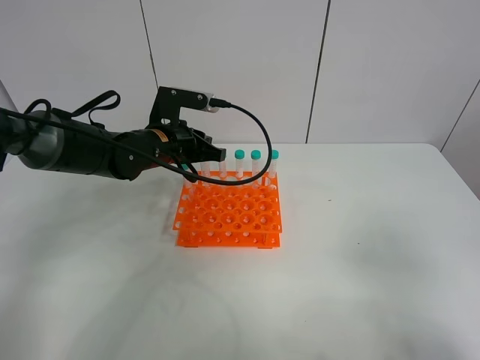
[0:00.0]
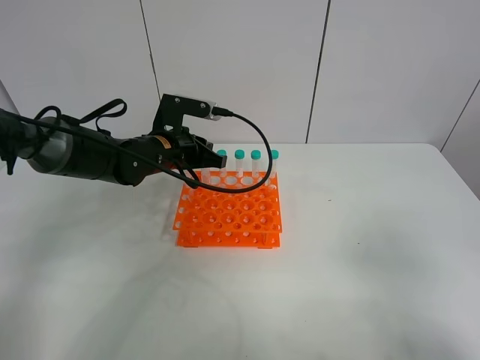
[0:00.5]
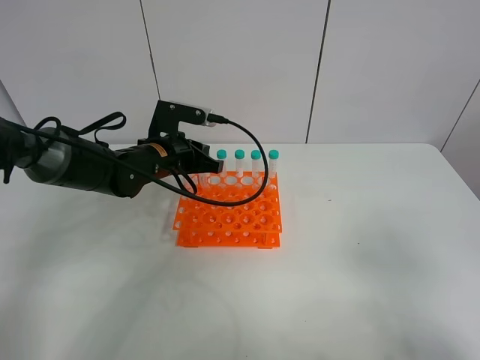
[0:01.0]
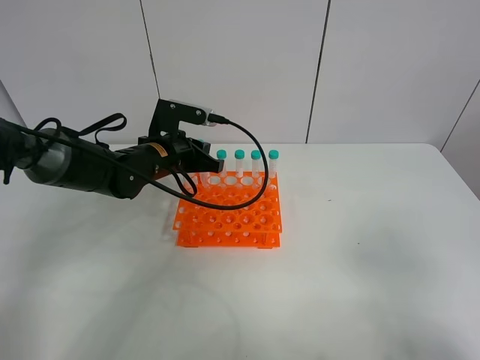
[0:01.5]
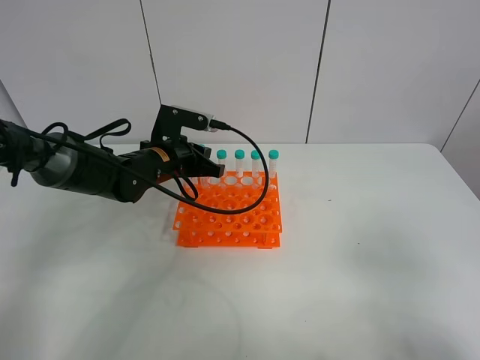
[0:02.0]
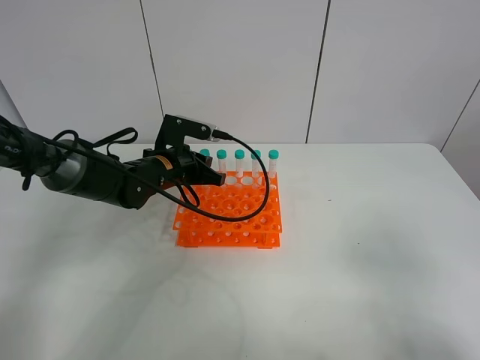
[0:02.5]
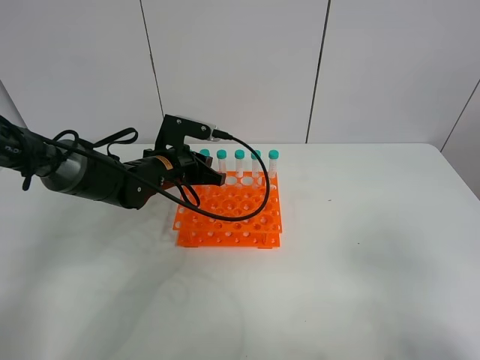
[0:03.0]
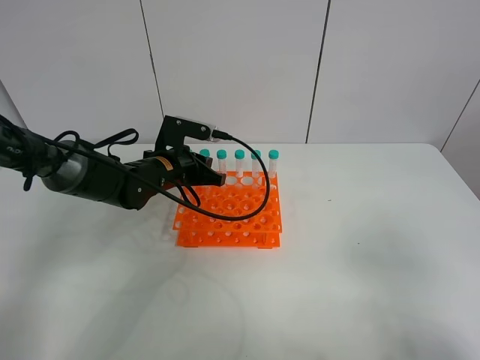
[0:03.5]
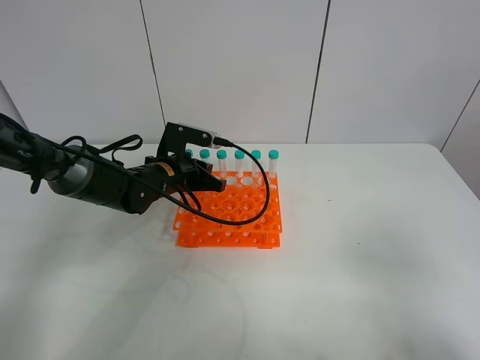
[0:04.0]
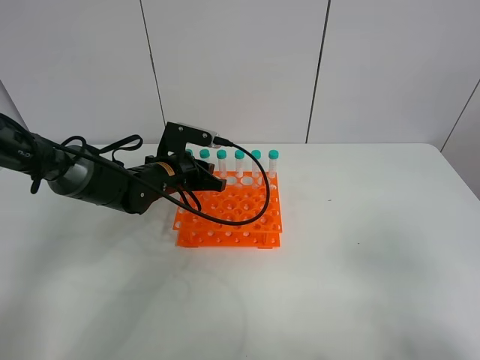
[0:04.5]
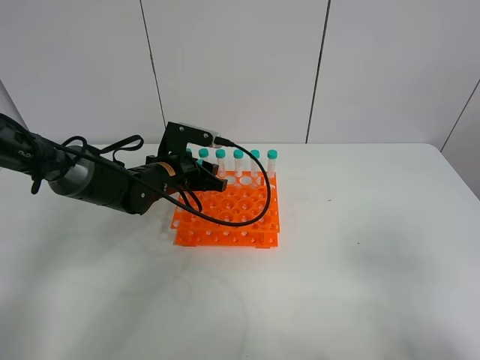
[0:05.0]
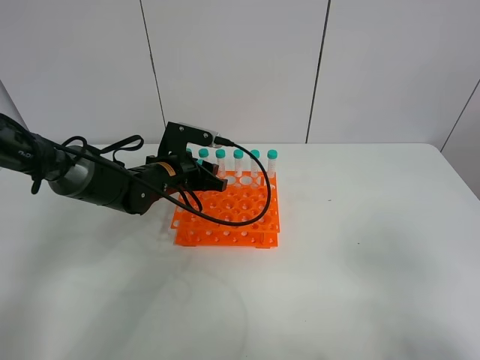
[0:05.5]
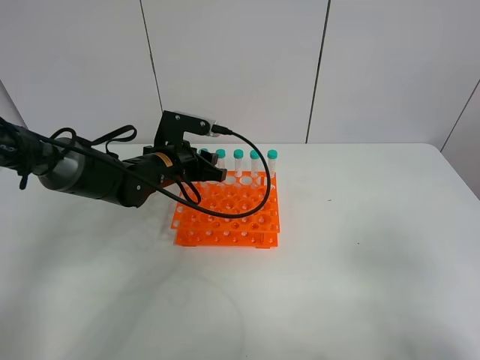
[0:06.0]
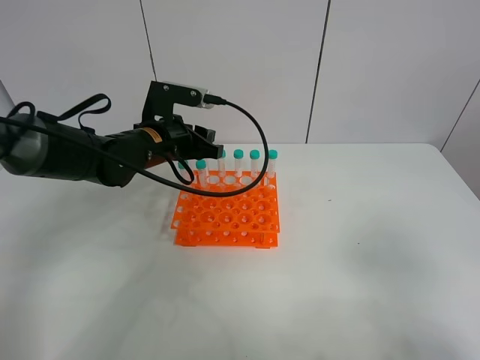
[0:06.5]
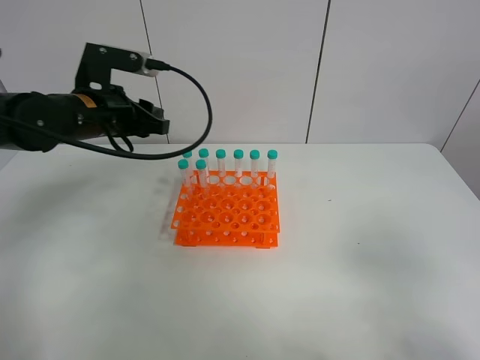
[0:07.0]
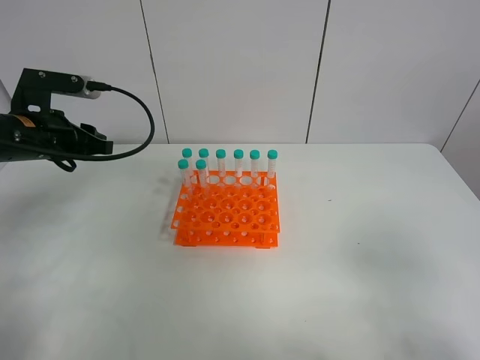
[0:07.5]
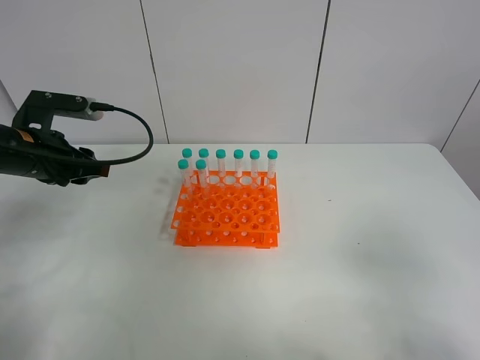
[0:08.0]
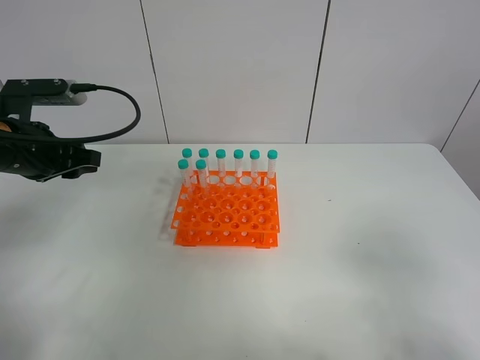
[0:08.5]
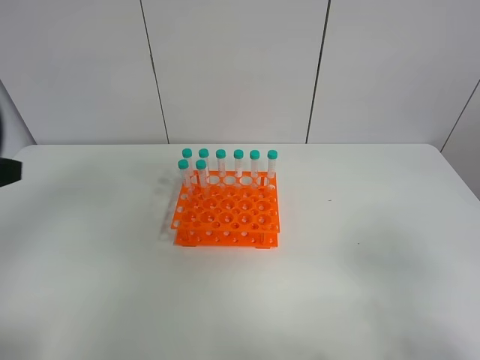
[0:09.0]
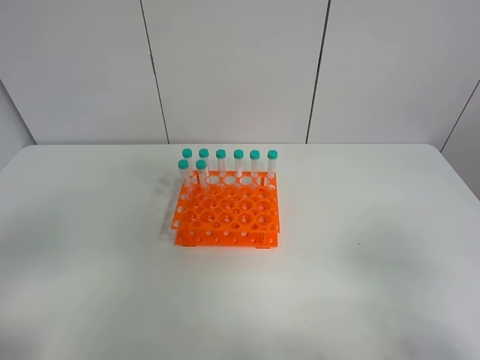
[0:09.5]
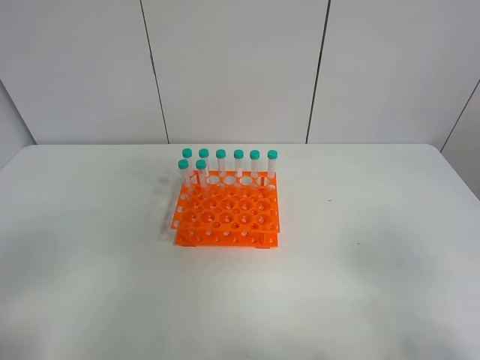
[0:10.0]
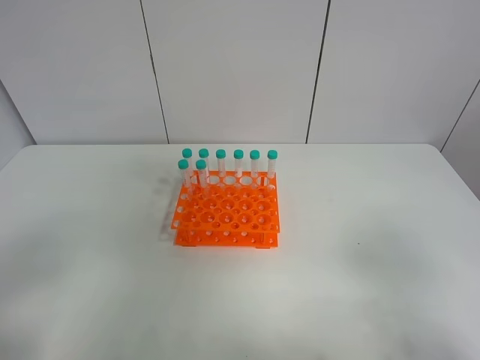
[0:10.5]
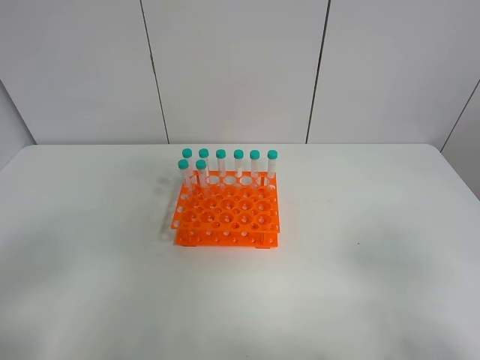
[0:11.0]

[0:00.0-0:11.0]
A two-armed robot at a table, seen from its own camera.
Task of the whole recording: Put the test tube on the table back onto the test tube rack.
Step, 0:00.0 to 0:05.5: Place the test tube on the test tube rack with the left gripper.
0:00.0 to 0:03.5: The grippers move only a little.
0:03.5 to 0:05.5: The left gripper opens its fingers.
0:05.5 to 0:07.5: The left gripper shifts some 20 cm to the left and upward.
0:07.5 to 0:09.0: The left gripper shifts approximately 20 cm backward and upward.
0:09.0 to 0:11.0: The left gripper heads backward and downward, covering approximately 15 cm.

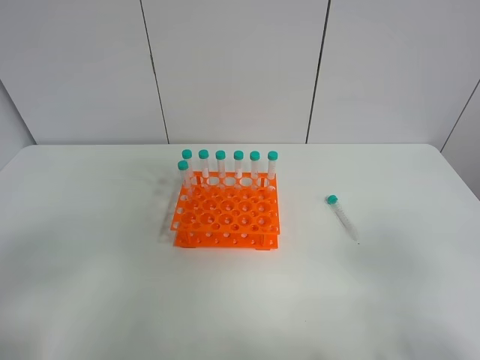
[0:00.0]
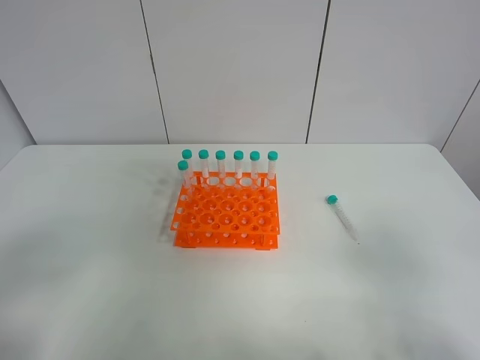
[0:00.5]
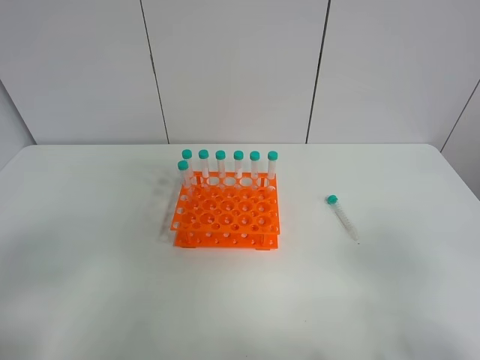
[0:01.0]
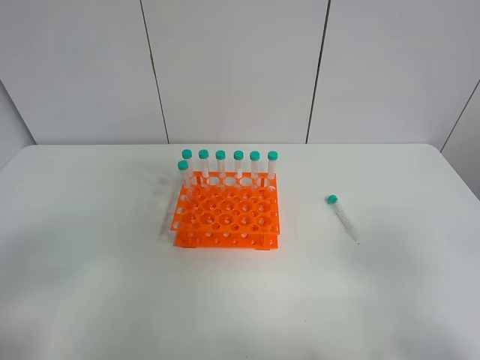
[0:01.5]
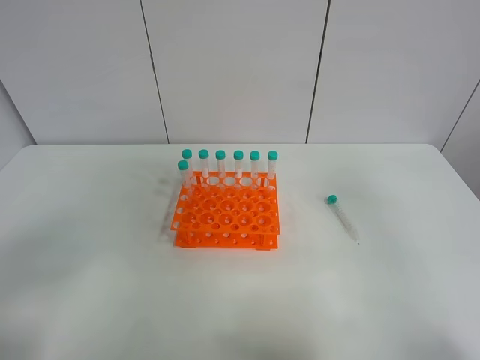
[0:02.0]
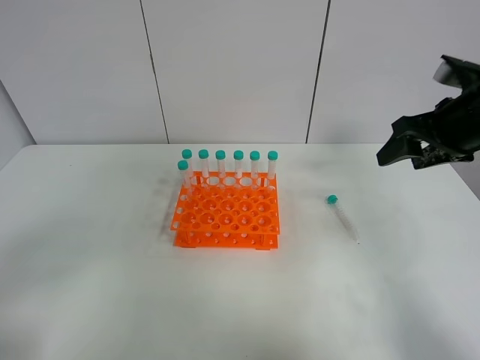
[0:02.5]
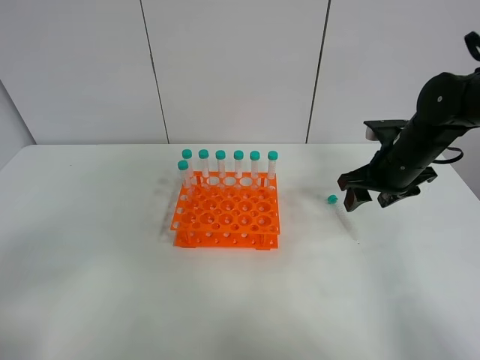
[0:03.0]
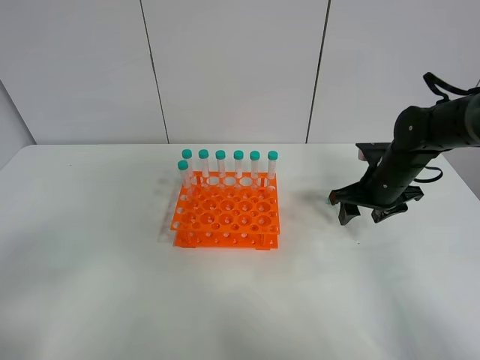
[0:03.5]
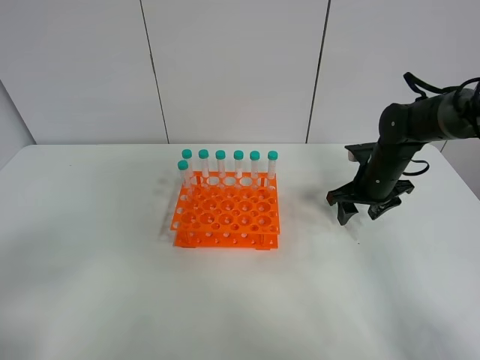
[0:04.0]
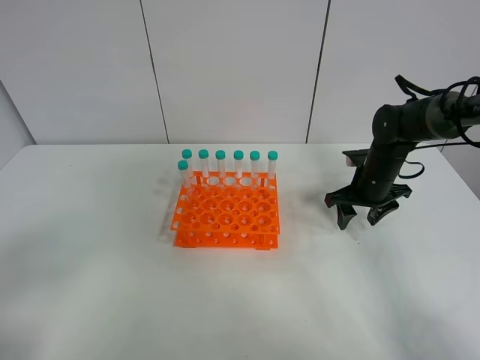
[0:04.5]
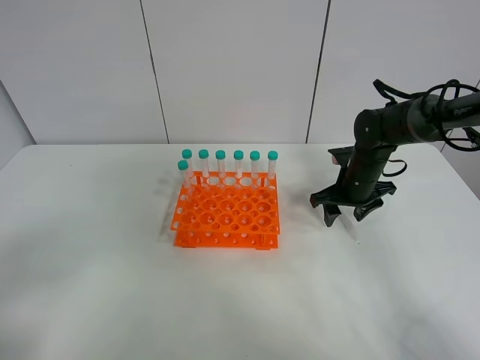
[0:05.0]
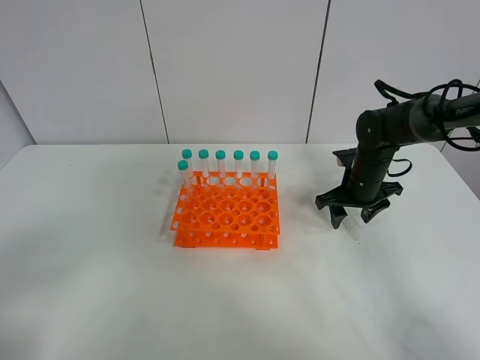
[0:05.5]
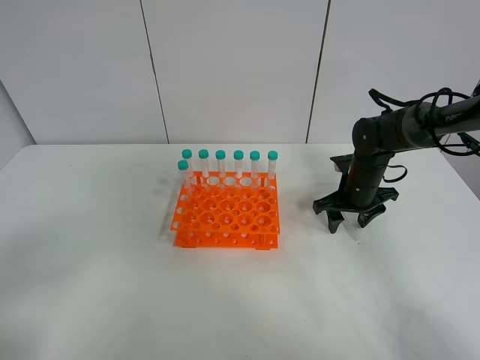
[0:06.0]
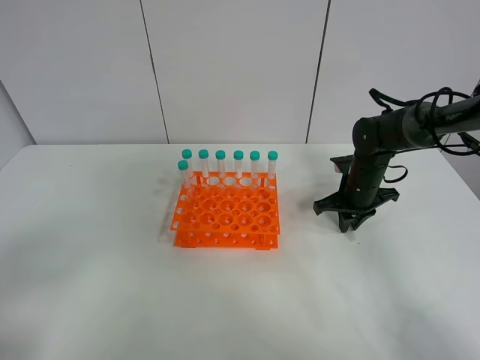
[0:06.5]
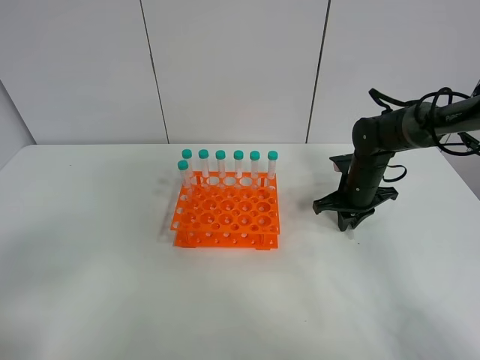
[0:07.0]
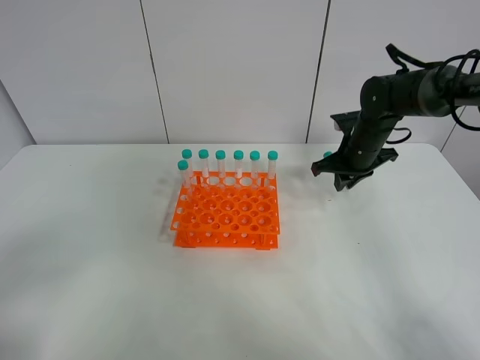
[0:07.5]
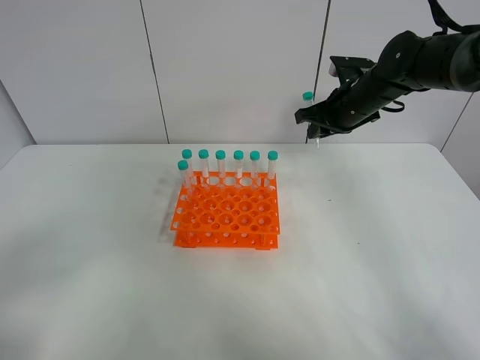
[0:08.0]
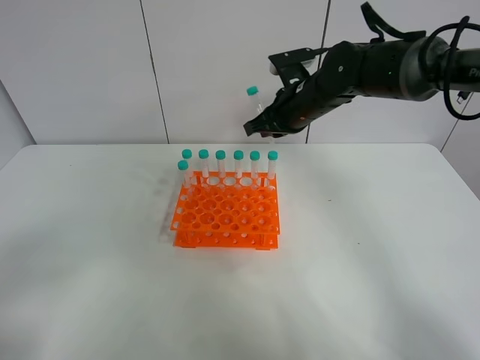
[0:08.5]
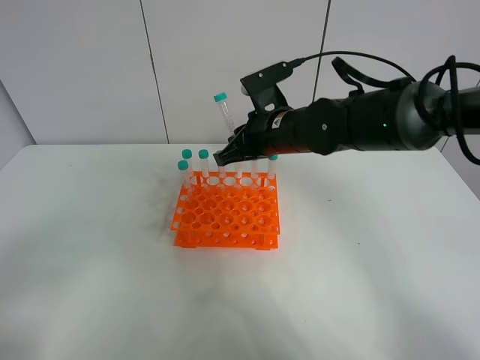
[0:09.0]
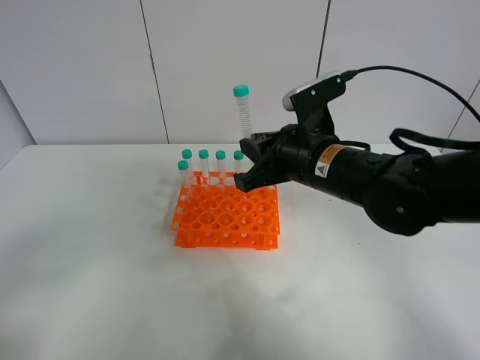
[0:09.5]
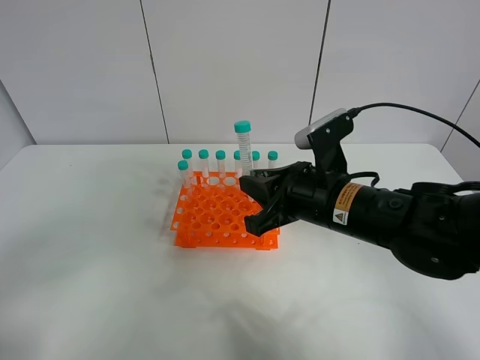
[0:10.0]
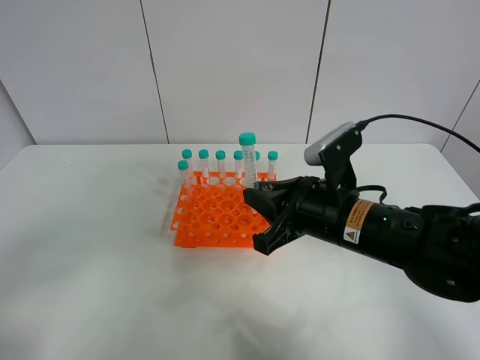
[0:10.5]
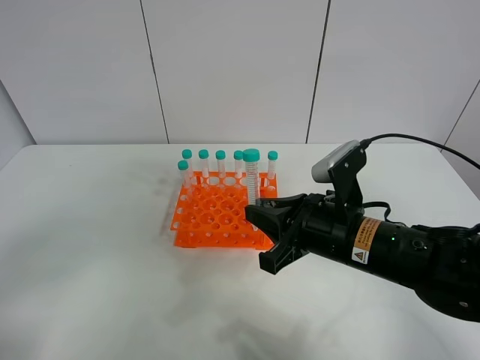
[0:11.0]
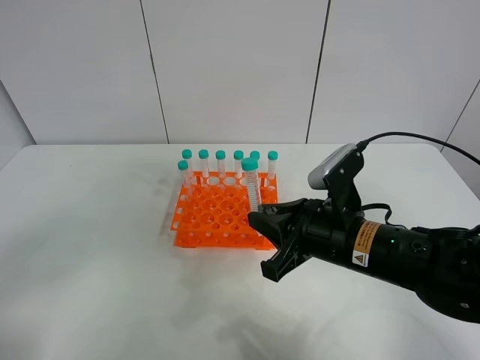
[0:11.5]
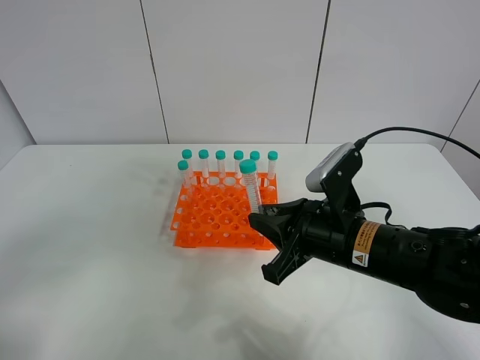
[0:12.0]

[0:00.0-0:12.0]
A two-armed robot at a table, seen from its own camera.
Task of the whole recording: Put the test tube on the table back onto the test tube rack.
Step, 0:00.0 to 0:07.5: Pick up the test tube with the right gripper.
0:00.0 to 0:02.0: The right gripper goes about 15 cm forward and upward.
0:02.0 to 0:04.0: The right gripper shifts roughly 35 cm forward and downward.
0:04.0 to 0:06.0: The grippers move only a little.
0:06.0 to 0:08.0: The right gripper moves upward, some 15 cm, and closes its fingers.
0:08.0 to 0:10.0: The right gripper goes roughly 20 cm backward and to the left.
0:10.0 to 0:12.0: There are only small adjustments of the grippers.

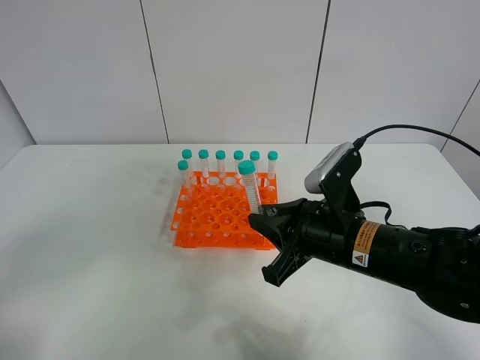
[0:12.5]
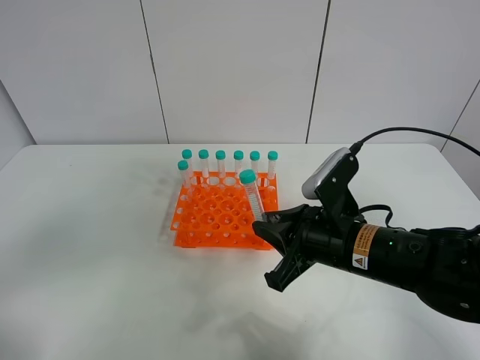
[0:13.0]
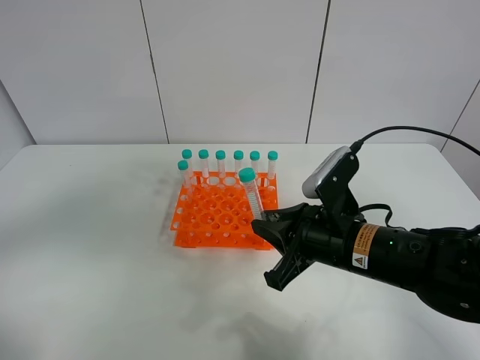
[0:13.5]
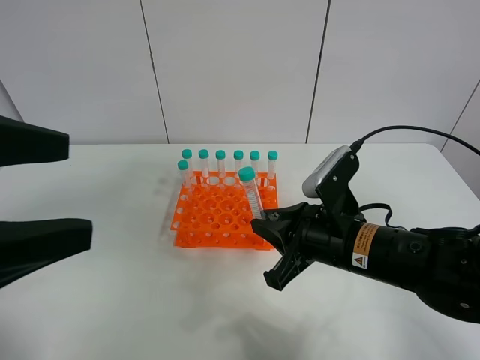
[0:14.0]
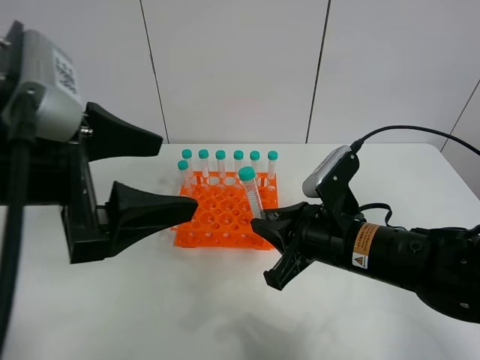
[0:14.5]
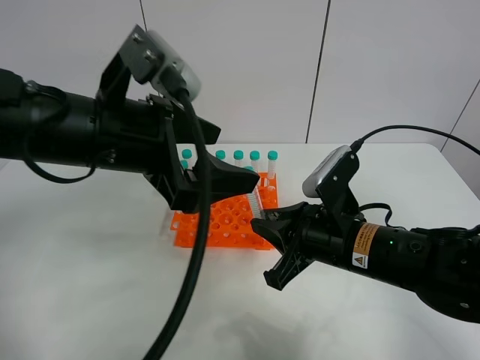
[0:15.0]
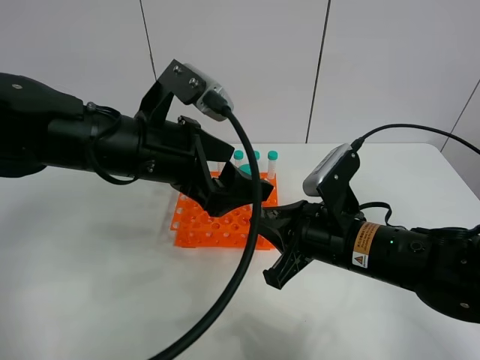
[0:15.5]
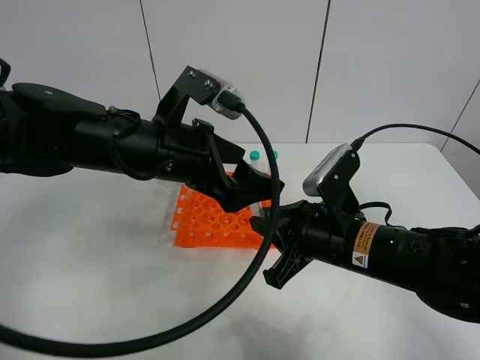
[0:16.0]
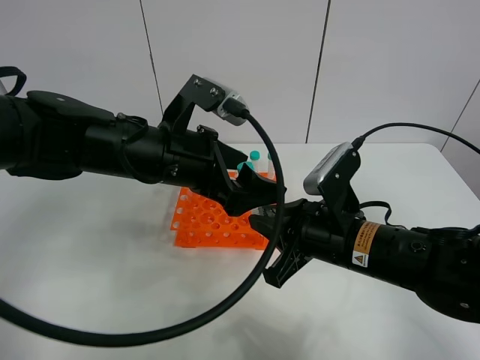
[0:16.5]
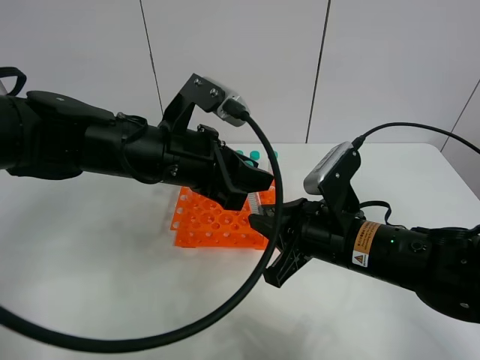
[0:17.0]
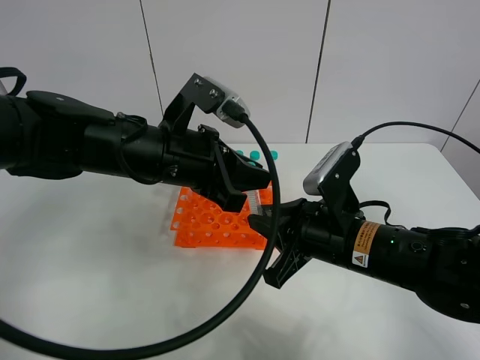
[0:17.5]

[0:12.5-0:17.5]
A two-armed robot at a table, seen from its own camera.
Task of the whole recording: Put the test tube on the table back onto the test tube rack.
0:12.5 to 0:15.0: The left gripper goes roughly 30 cm forward and to the right.
0:15.0 to 0:17.5: The left gripper shifts by about 5 cm, and closes its fingers.
